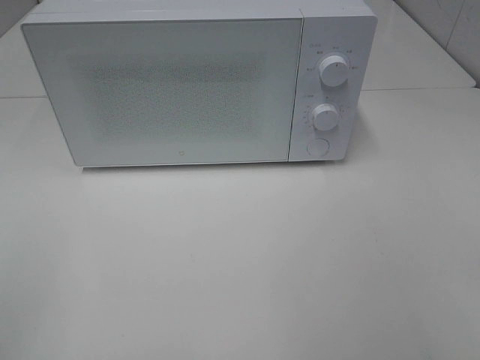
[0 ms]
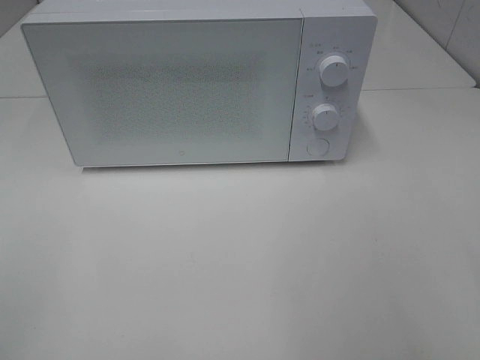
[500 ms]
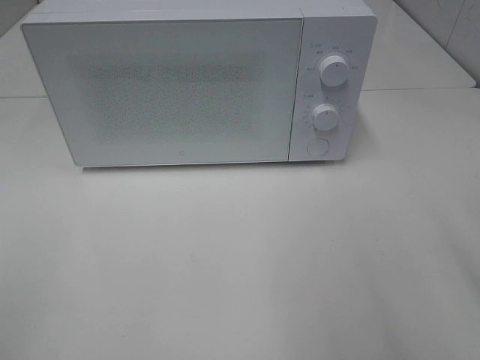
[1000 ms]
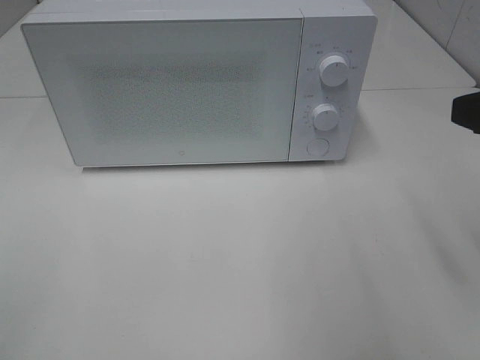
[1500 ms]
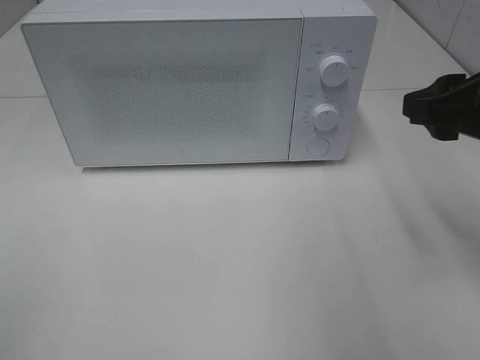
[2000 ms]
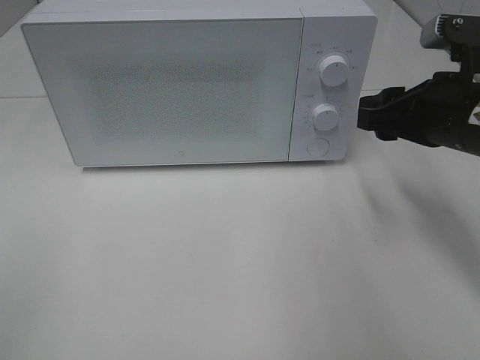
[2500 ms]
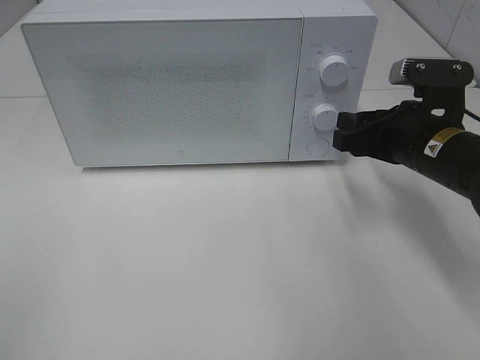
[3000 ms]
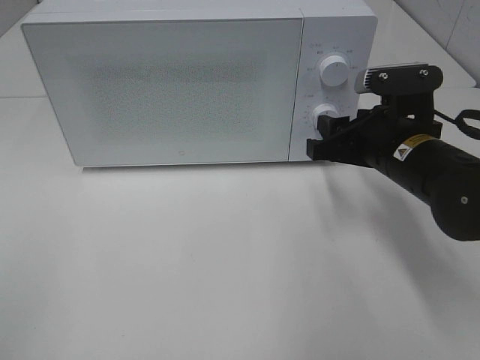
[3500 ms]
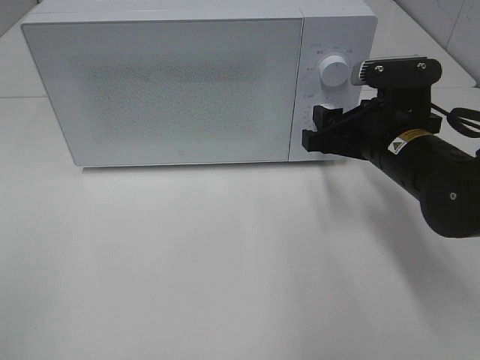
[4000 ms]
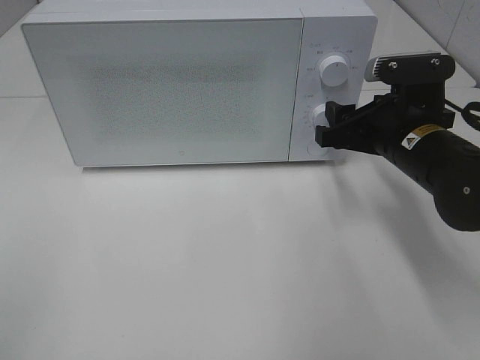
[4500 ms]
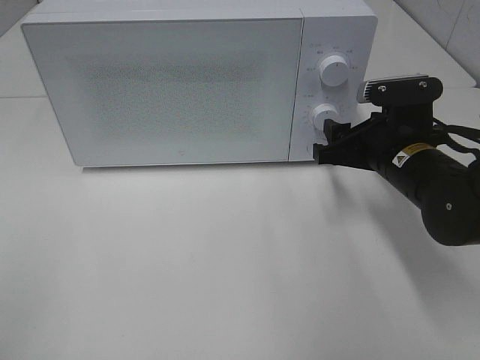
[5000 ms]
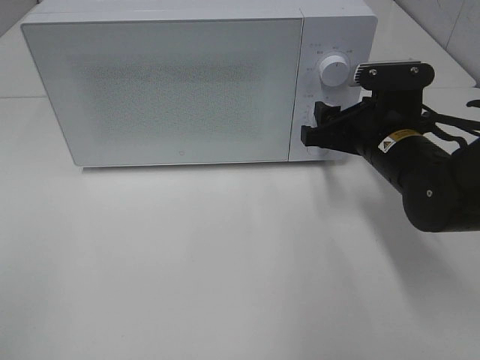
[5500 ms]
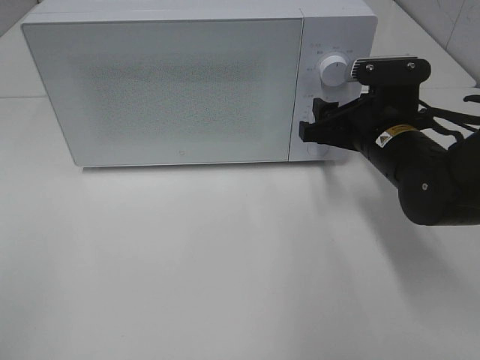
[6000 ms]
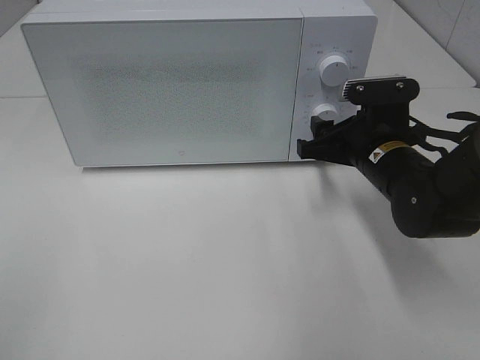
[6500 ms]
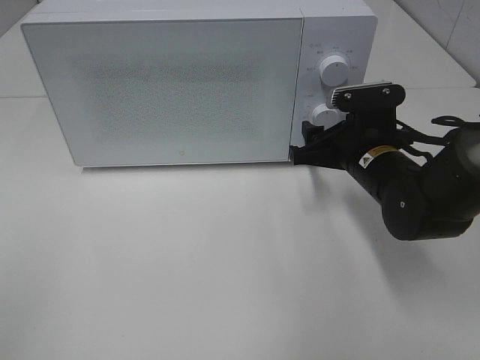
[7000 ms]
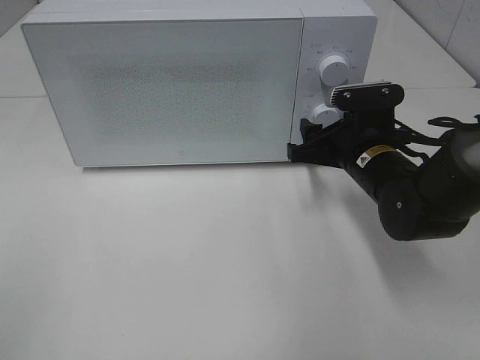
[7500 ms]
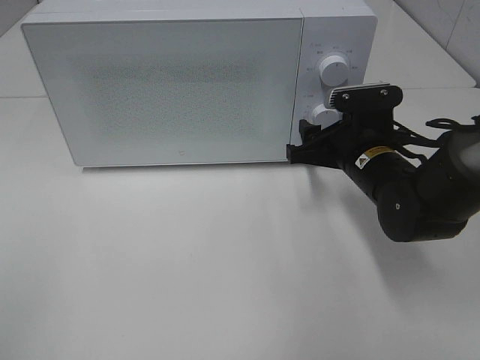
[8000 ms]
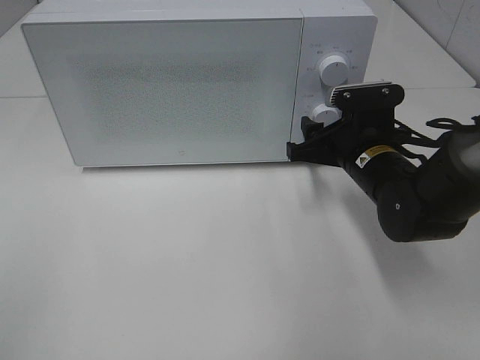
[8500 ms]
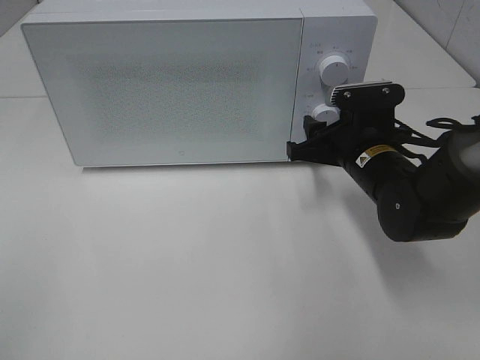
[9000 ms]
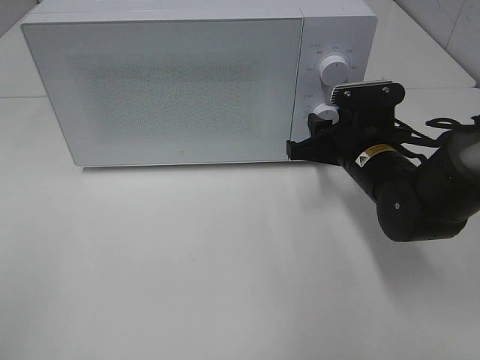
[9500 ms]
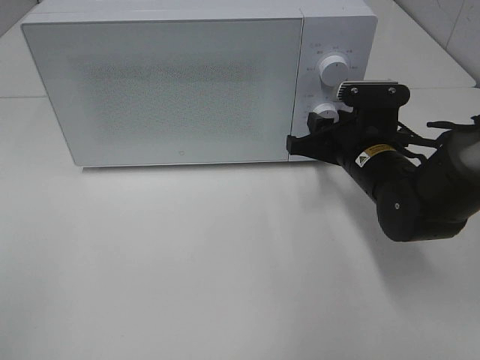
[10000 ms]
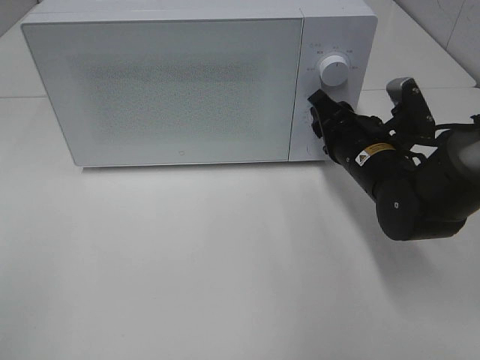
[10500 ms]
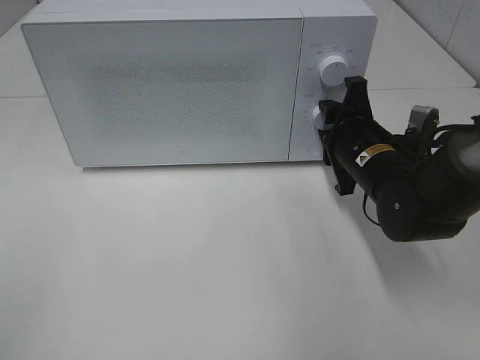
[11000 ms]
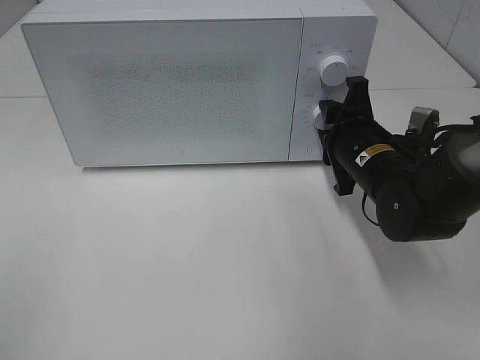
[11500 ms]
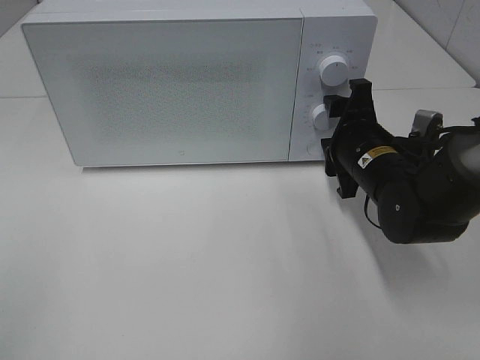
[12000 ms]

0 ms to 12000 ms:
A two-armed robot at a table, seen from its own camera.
Task of the whole recording: Heat the burger.
Step, 0 ms to 11500 ms: Right hand: twist timer button.
0 ms to 2000 ms: The right gripper shifts approximately 20 cm forward.
2000 ms to 4000 ms: The right gripper heads downward, forward and to the left, covering some 15 cm.
4000 ms to 10000 ms: The grippers stay close to where they were, moving slightly.

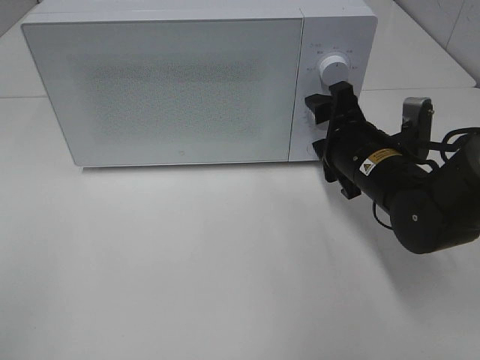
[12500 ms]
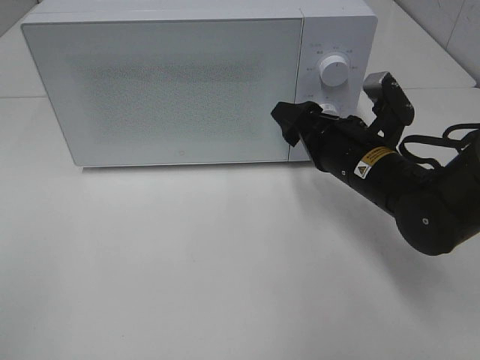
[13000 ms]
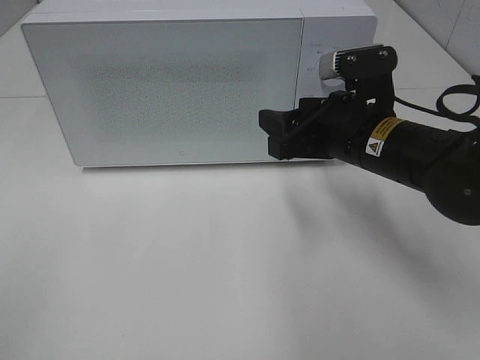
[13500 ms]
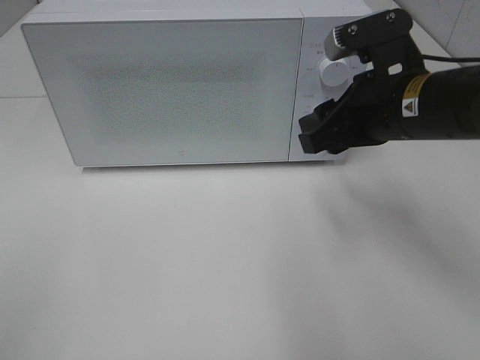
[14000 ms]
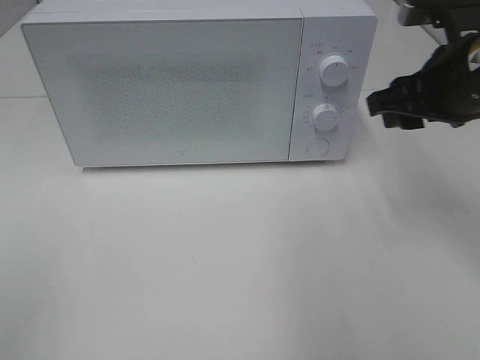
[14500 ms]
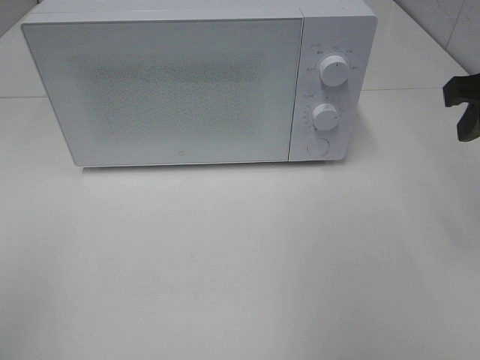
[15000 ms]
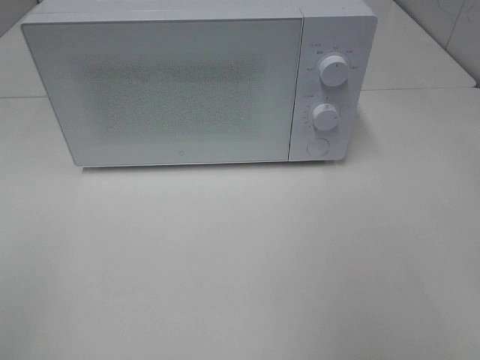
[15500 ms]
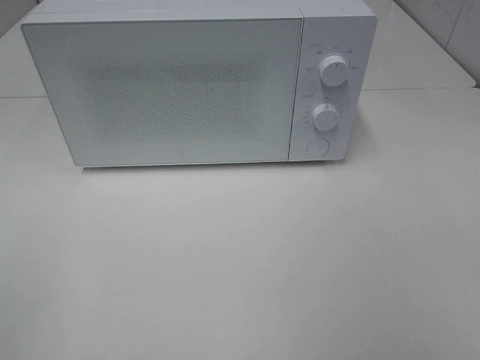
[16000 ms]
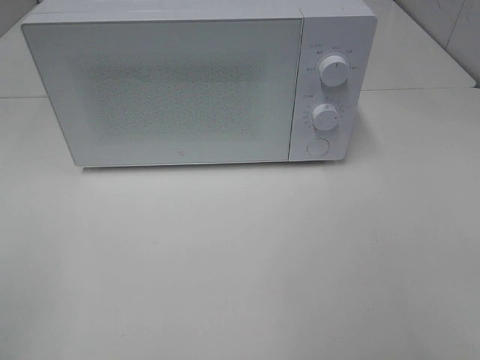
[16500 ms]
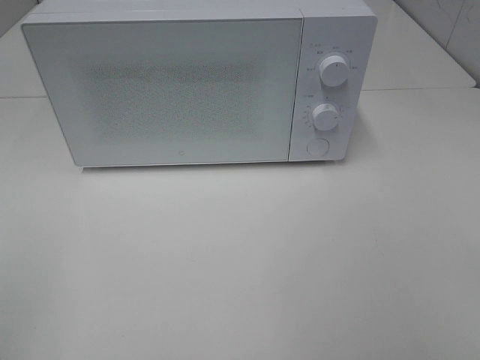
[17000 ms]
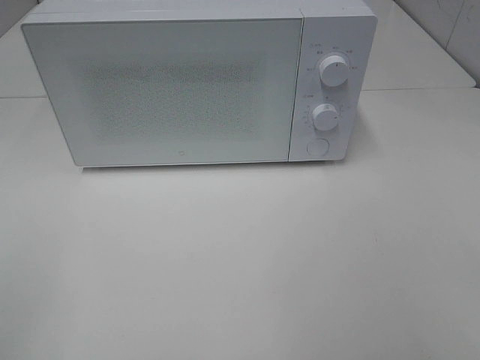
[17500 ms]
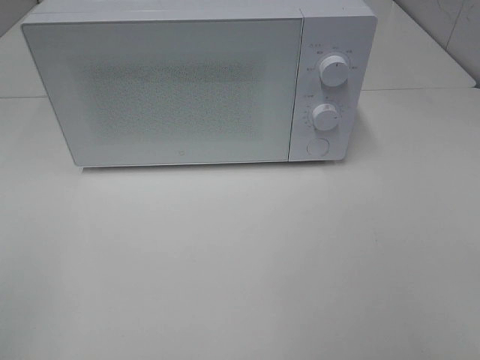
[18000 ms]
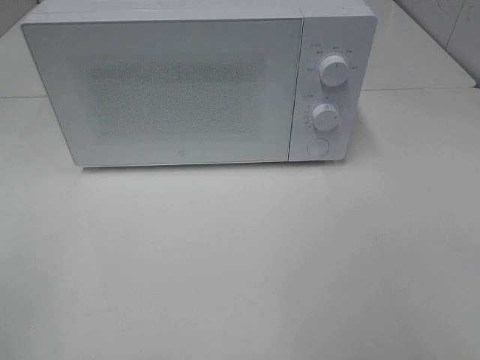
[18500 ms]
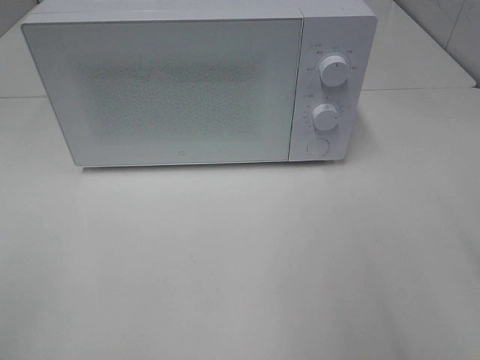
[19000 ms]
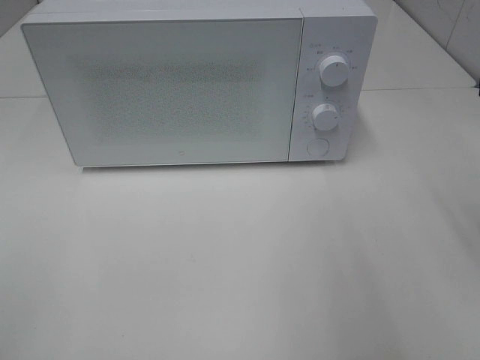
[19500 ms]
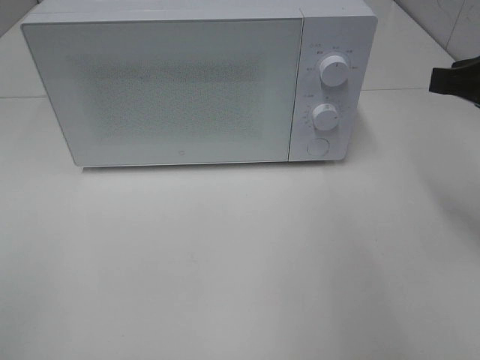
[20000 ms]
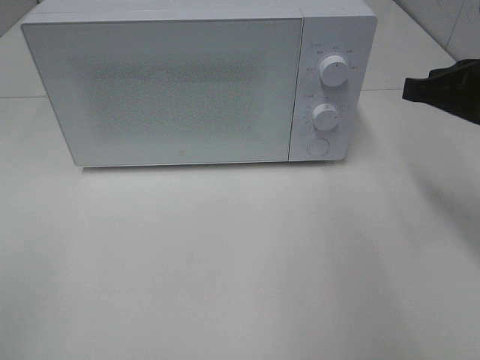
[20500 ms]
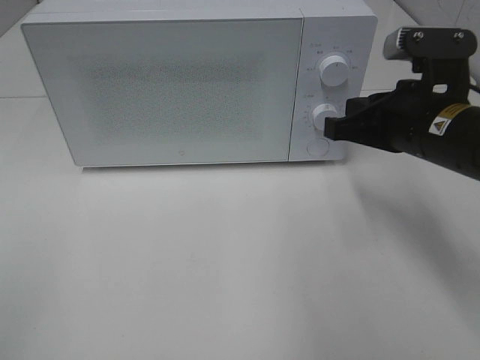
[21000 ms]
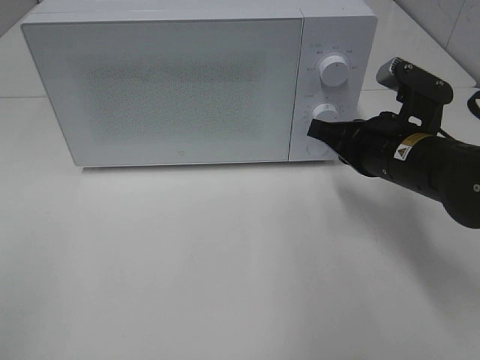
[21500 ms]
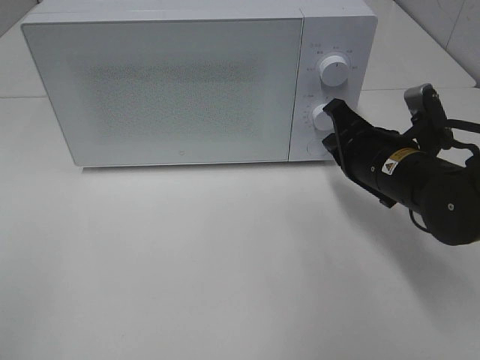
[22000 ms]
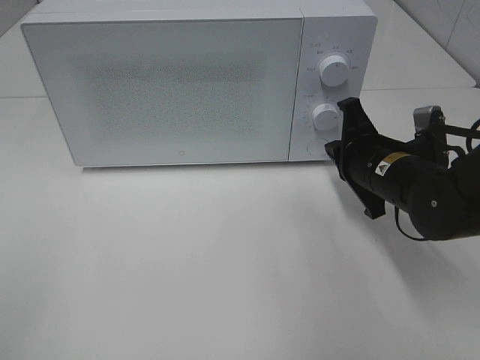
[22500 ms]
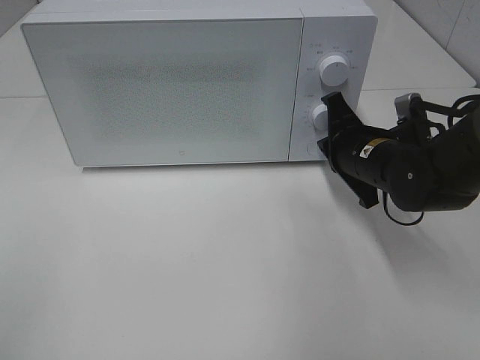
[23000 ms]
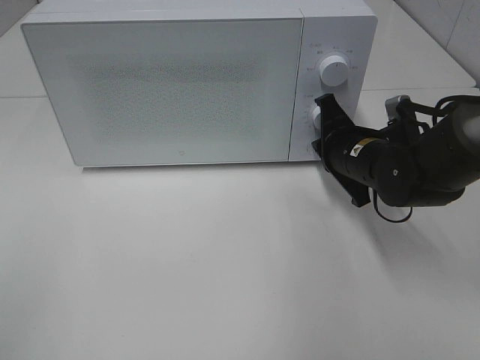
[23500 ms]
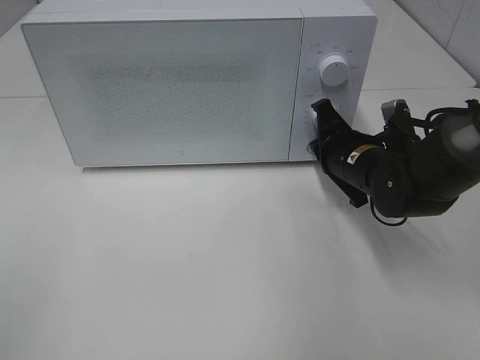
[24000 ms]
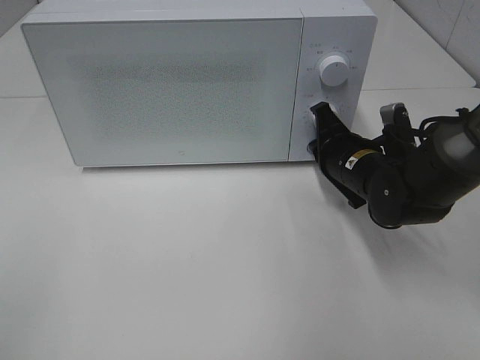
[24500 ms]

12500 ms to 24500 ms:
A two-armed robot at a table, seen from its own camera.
Task of the whole recording: Heat the burger.
12500 ms to 14500 ms: The right gripper moves upward and to the right, some 15 cm.
14500 ms to 16500 ms: The right gripper moves backward, roughly 30 cm.
18500 ms to 20500 ms: The right gripper heads forward, covering approximately 20 cm, and closes its fingers.
20500 ms to 22500 ms: The right gripper shifts about 15 cm downward and to the left.
22500 ms to 24500 ms: The right gripper changes place by roughly 5 cm.

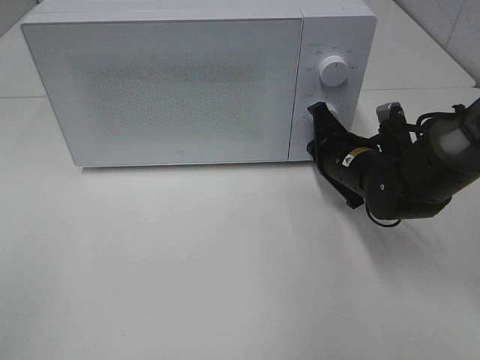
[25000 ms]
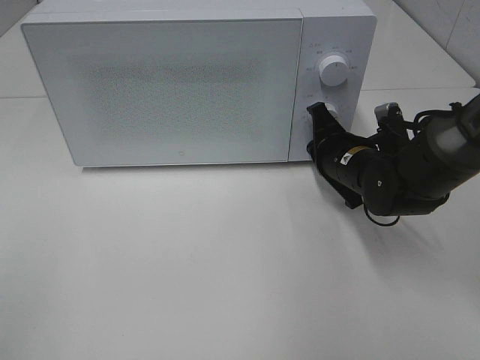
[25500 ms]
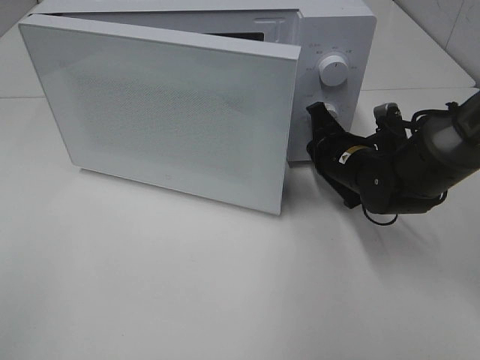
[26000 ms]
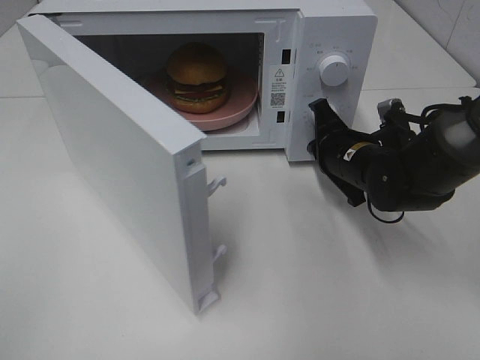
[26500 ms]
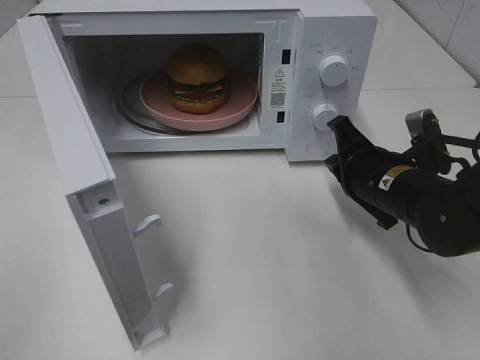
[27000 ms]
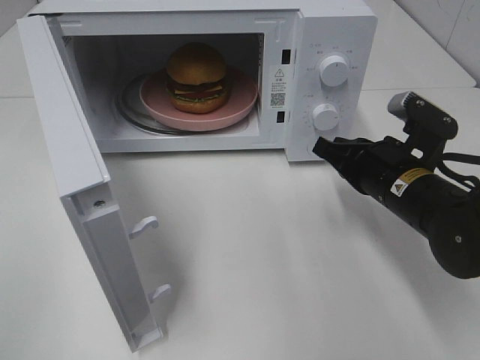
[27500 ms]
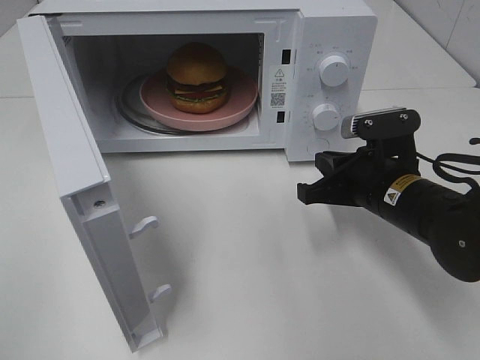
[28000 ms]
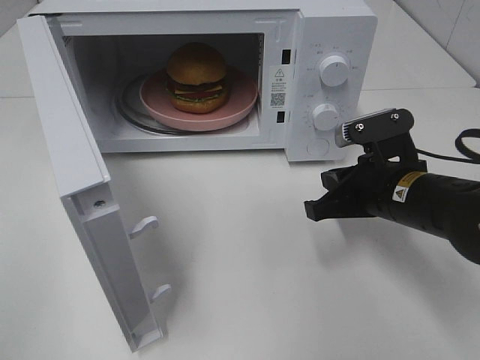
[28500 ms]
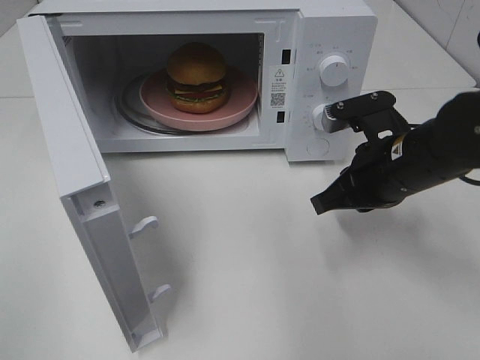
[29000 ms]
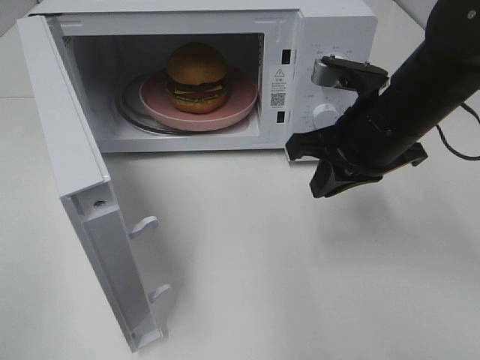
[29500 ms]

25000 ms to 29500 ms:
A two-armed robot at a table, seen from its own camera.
Task of the whole recording: Heat the burger.
25000 ms to 27000 ms: The right gripper heads backward, covering roughly 5 cm.
27000 ms to 29500 ms: The right gripper goes roughly 10 cm upward.
